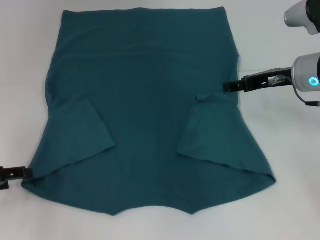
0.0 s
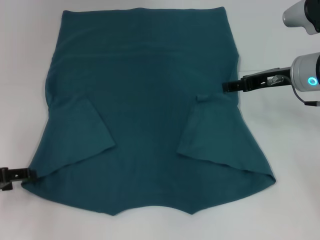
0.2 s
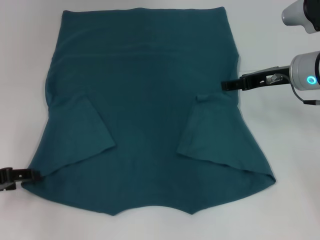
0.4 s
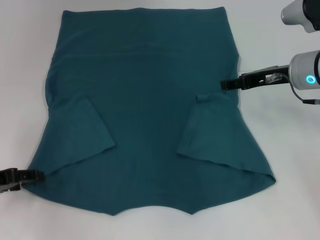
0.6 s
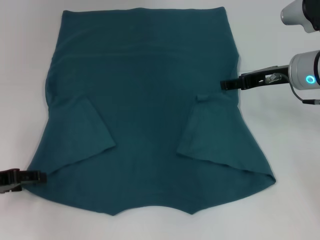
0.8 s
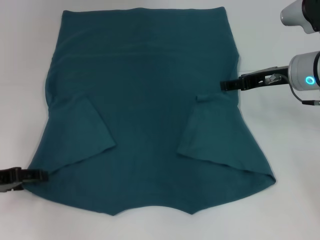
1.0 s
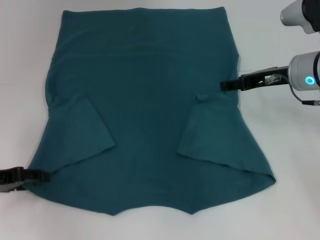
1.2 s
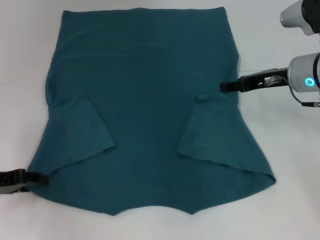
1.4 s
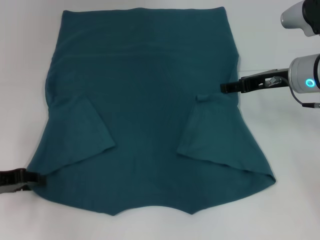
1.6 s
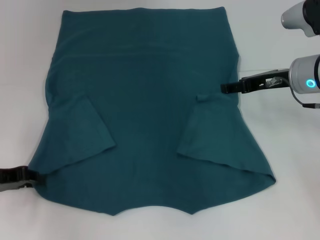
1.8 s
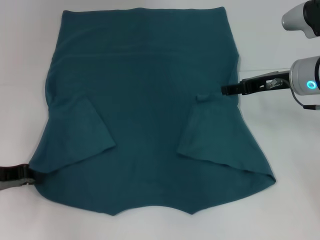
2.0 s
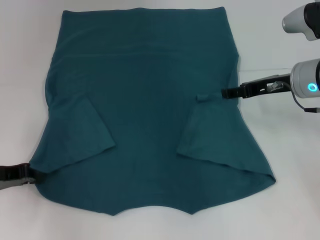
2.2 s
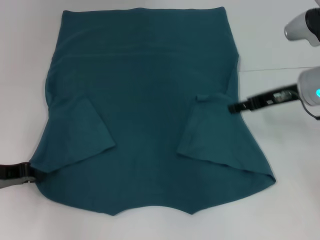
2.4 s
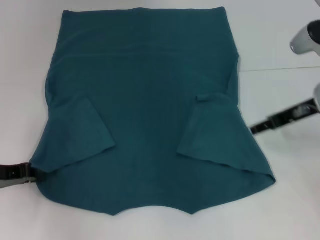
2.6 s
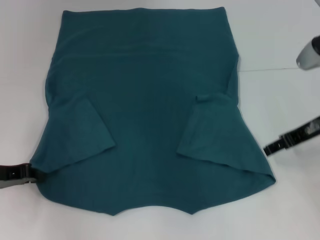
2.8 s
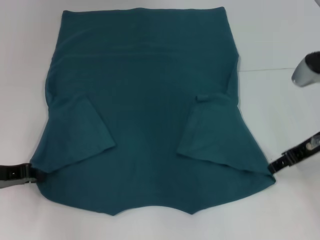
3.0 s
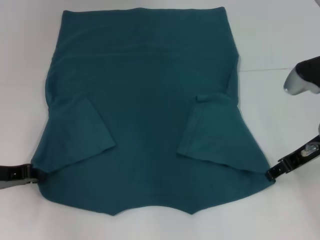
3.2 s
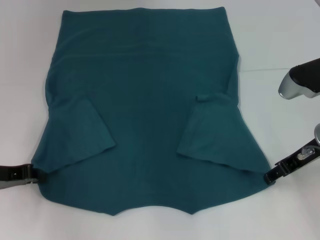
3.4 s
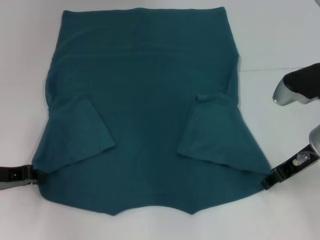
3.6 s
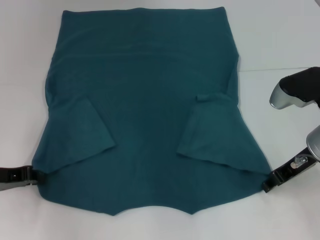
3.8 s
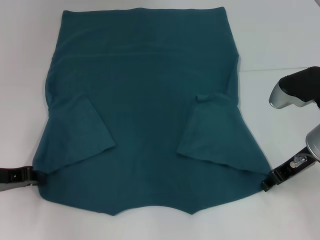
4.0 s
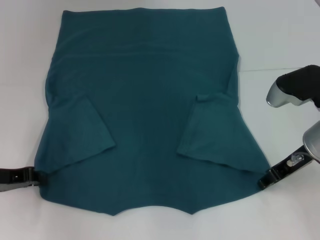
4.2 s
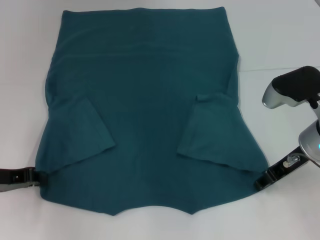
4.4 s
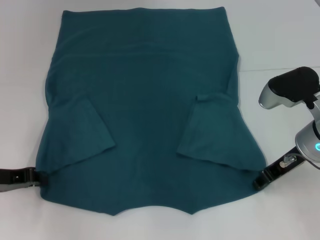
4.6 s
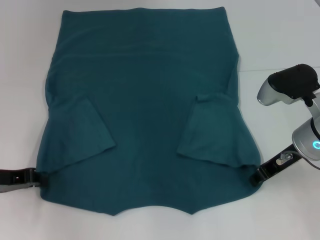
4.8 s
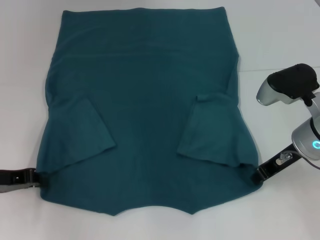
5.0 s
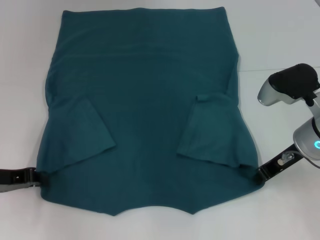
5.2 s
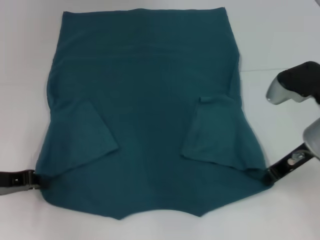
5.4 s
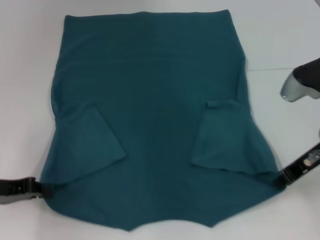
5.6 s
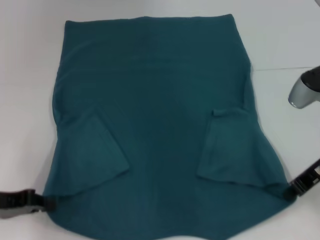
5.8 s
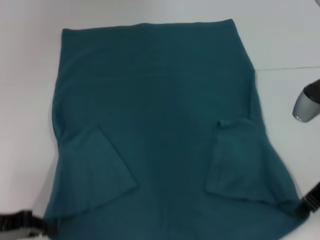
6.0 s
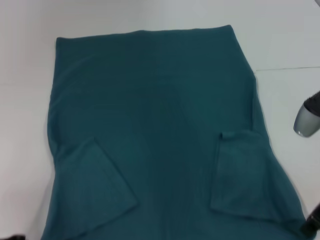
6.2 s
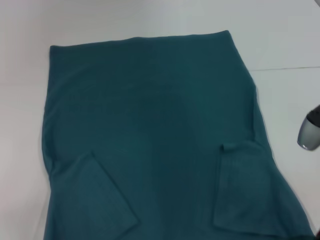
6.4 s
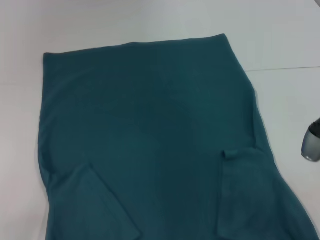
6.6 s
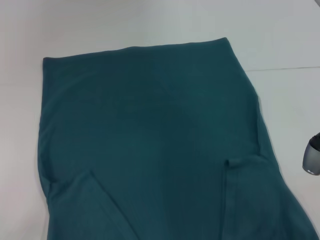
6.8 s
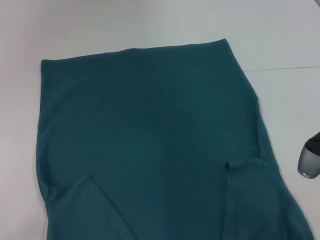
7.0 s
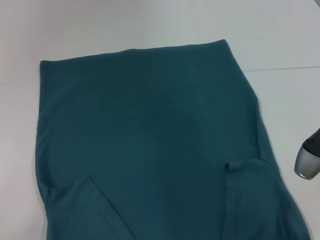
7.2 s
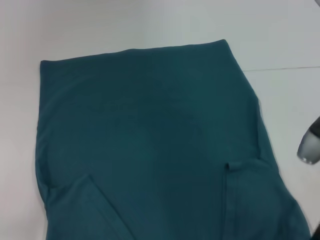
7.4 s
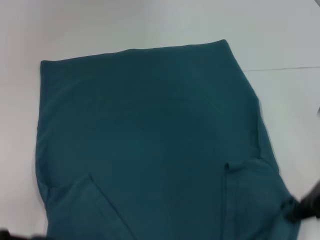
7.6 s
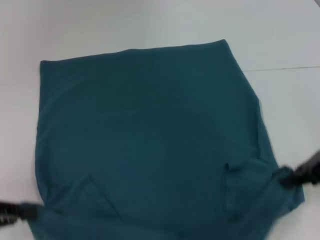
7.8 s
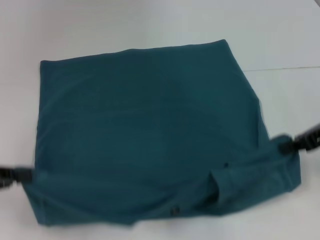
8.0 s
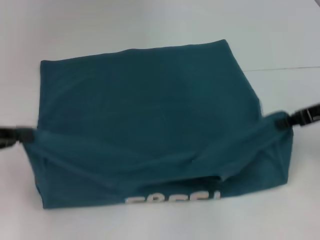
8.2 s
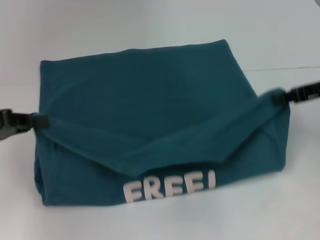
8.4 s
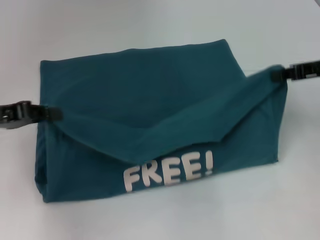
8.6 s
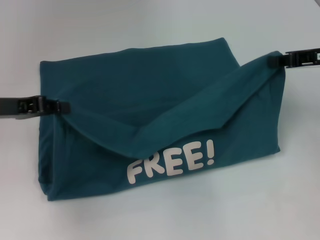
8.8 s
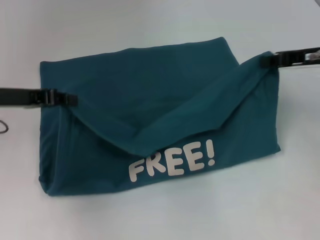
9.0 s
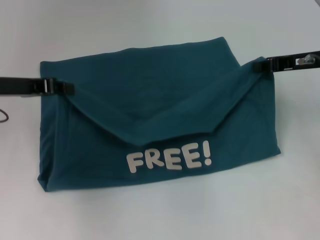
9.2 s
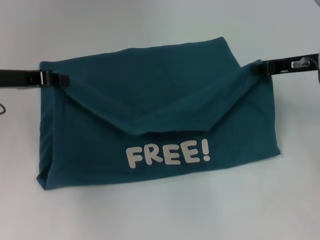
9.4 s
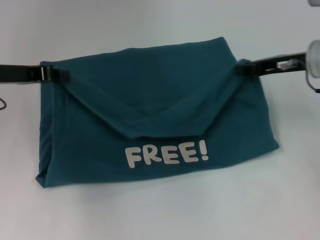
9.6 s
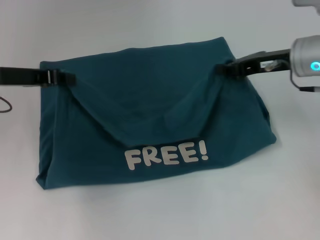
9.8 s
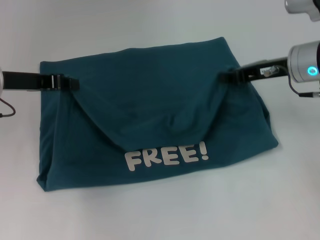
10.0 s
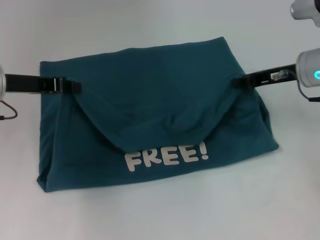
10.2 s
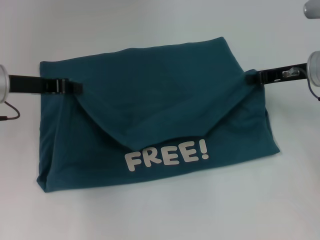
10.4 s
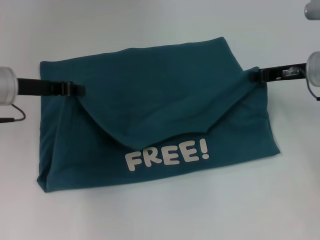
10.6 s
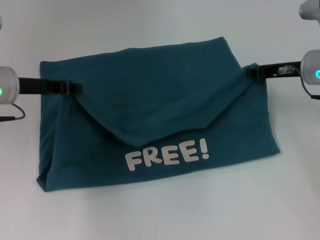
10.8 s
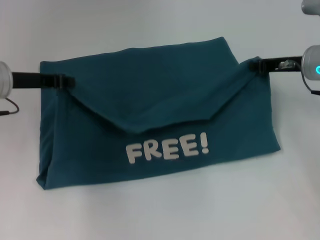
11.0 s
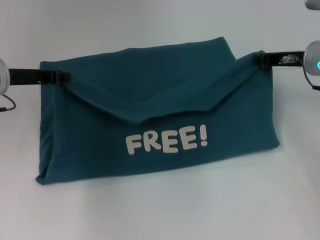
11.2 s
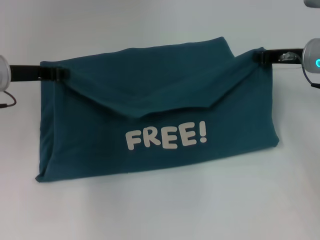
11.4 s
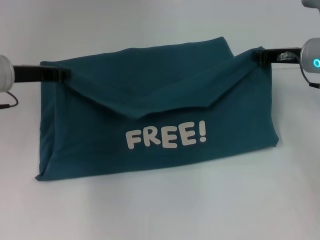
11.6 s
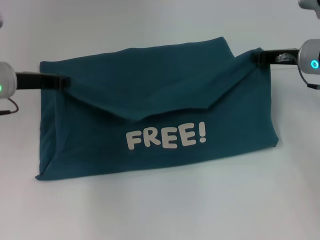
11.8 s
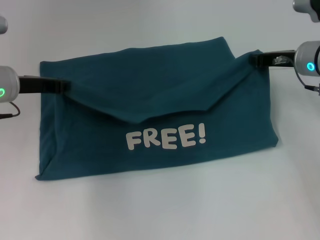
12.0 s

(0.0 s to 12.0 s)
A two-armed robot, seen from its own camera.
Step, 0.0 s - 2.0 s: Grab the bottom left corner with your left hand.
Step, 2.2 s - 5.0 s: Grab the bottom right corner with your right hand.
0.0 s - 1.6 s: The grippers stay close to where they were, moving slightly.
1.6 s - 3.0 s: The right gripper shifts some 5 cm backward. The left gripper closes.
3.0 s - 4.4 s: The grippers move only a little.
4.4 s - 6.0 s: The left gripper shifts approximately 5 cm backward, while the right gripper ends up some 5 cm from where it was, and closes up.
6.0 s - 7.6 s: The left gripper is displaced backward by about 5 cm.
7.6 s - 9.0 s: The left gripper travels forward and upward by roughly 20 cm; the right gripper heads forward, covering about 10 cm.
9.0 s - 10.4 s: The right gripper changes place by approximately 5 cm.
10.4 s - 12.0 s: The grippers make only small movements.

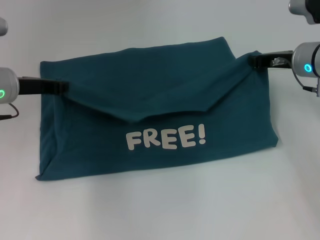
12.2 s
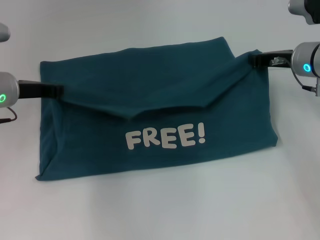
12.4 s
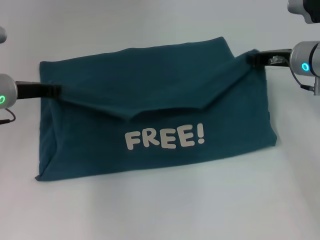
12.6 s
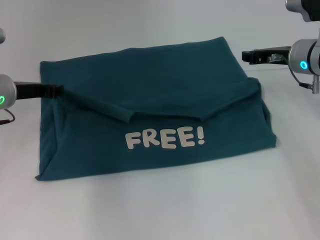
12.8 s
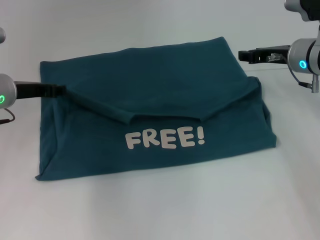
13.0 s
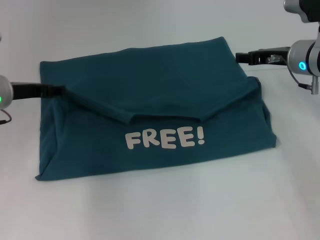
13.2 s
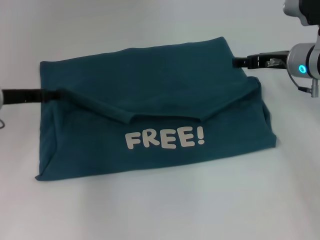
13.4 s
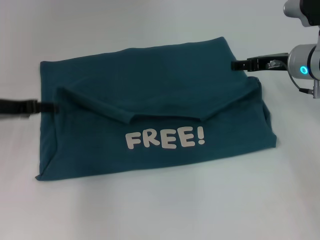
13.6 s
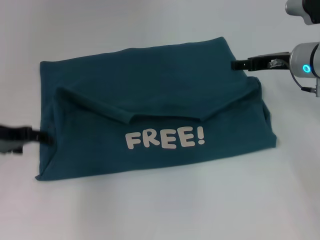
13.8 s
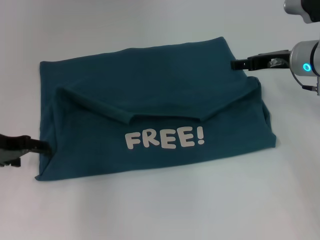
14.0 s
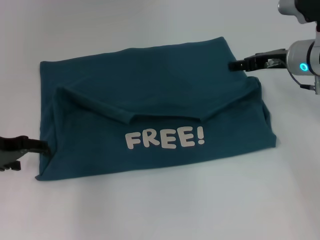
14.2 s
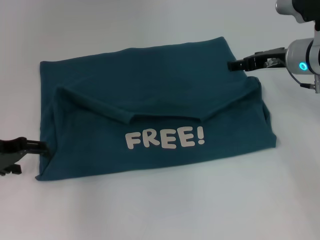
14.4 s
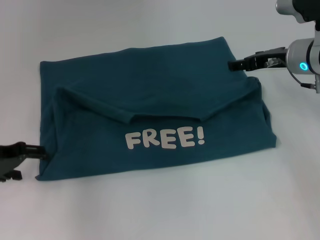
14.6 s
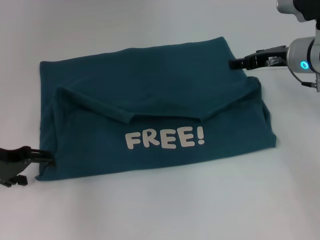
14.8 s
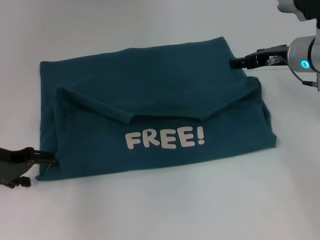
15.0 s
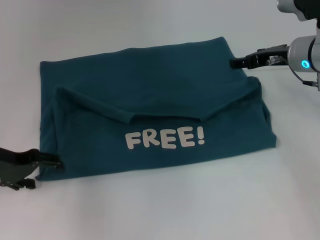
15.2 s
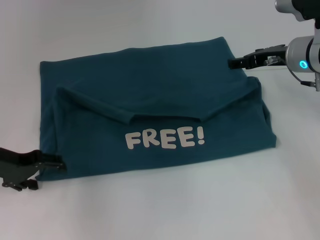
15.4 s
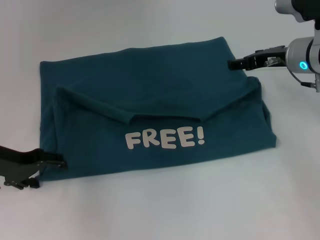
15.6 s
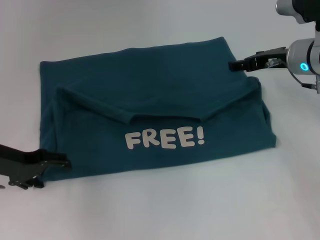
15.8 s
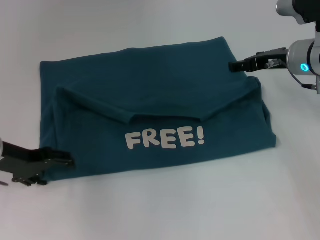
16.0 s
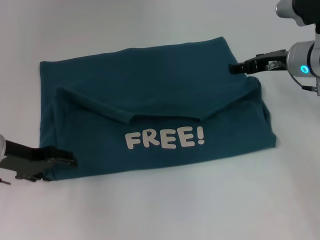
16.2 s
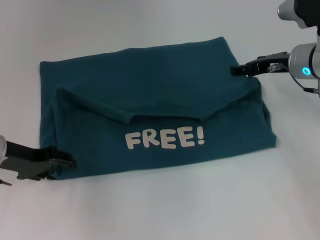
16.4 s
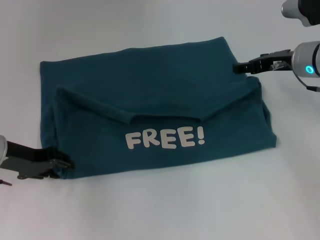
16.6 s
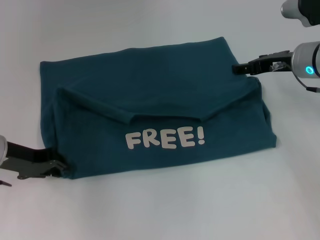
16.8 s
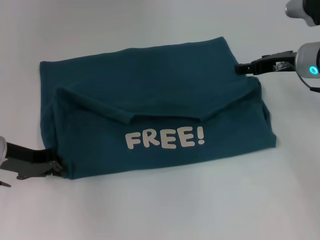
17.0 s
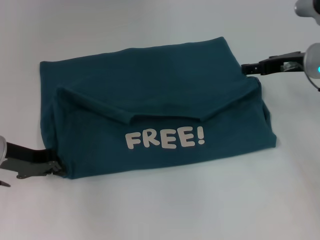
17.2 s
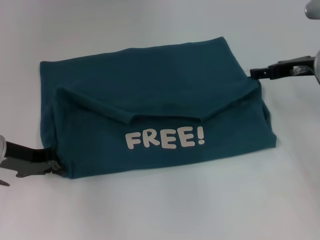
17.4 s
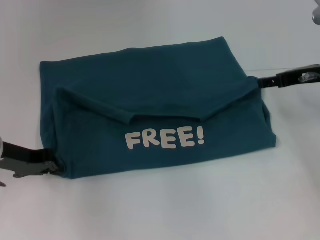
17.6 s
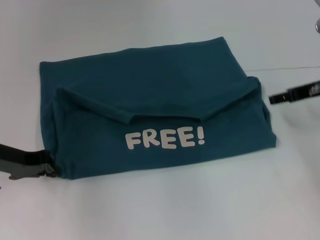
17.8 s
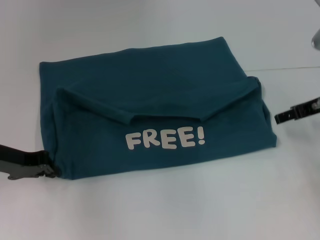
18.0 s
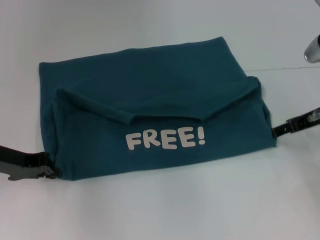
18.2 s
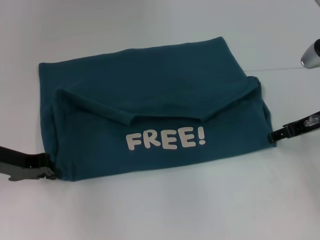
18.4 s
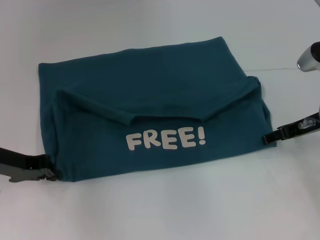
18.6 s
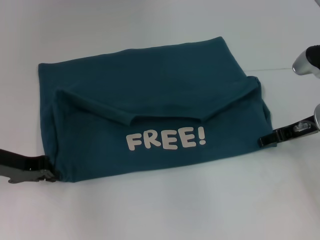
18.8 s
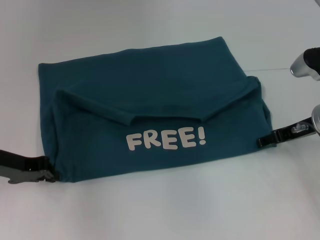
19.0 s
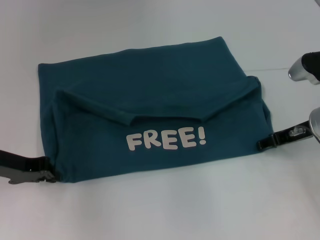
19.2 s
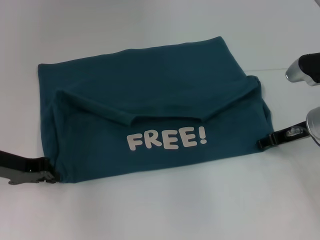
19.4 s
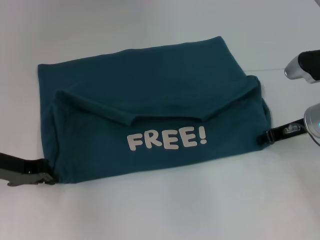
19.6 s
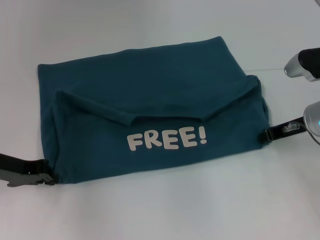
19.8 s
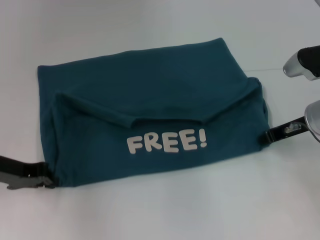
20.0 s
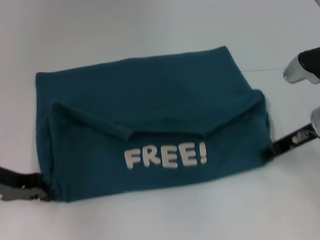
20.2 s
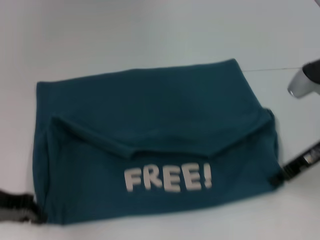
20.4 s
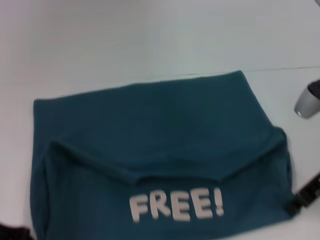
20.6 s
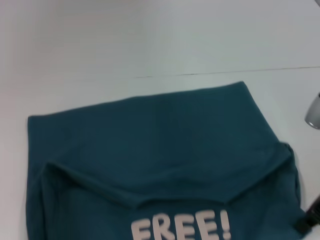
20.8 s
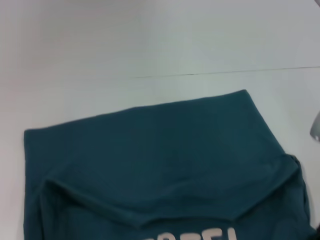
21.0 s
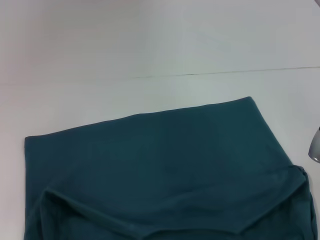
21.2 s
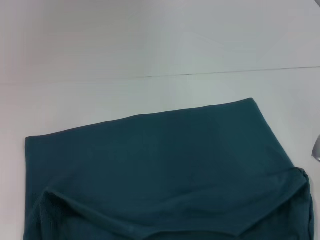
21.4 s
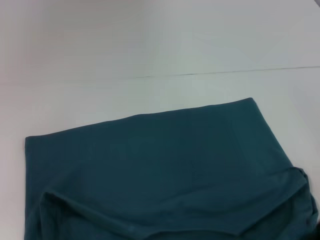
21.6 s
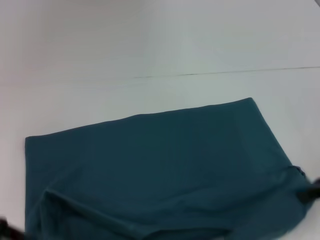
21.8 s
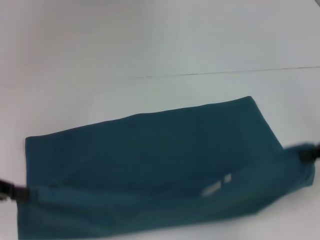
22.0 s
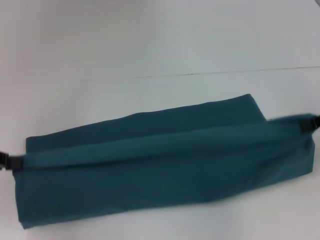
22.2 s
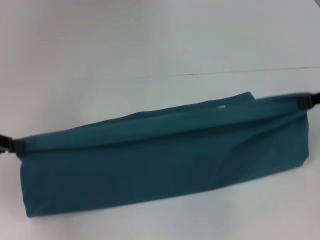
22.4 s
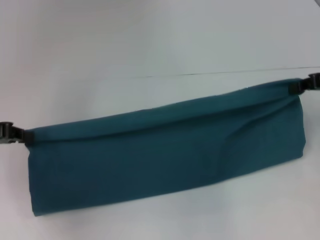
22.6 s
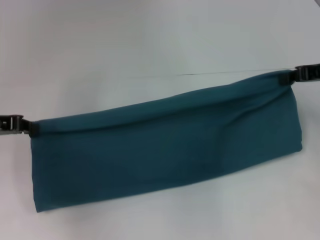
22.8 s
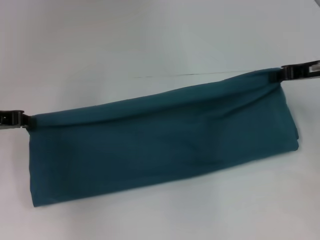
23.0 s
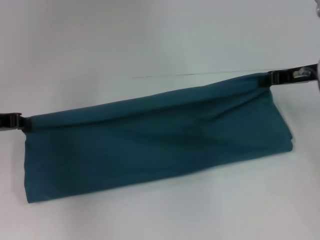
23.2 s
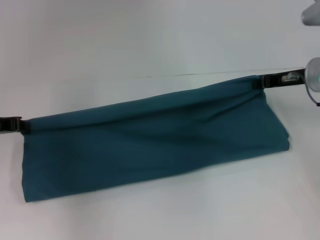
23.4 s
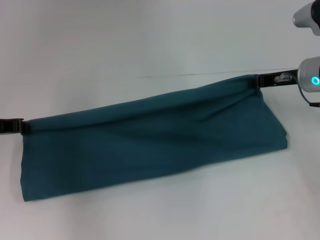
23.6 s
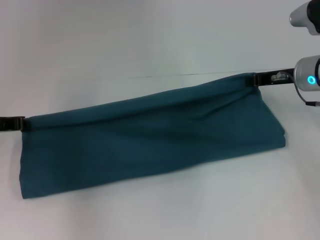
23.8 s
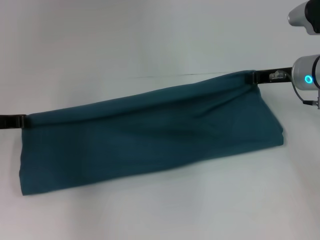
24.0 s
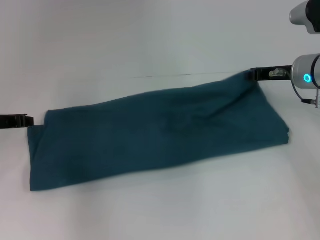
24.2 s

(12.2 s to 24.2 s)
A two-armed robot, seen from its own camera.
Step, 12.8 s - 13.2 s: Fold the clothes to the left.
Step, 13.4 s - 20.8 s: Pull the clothes with your left hand.
Step, 13.4 s - 20.8 s: Pull the clothes with your right hand.
Step, 21.0 s - 24.2 s: Fold the clothes to the right.
12.2 s - 13.8 s: The left gripper moves roughly 5 cm, and opens up. Meanwhile the right gripper opens its fingers.
15.2 s - 16.6 s: There are only small adjustments of the grippers.
16.6 s - 18.2 s: The right gripper moves backward, about 5 cm; the left gripper closes up.
18.2 s - 19.8 s: The right gripper closes its fingers.
19.8 s - 21.2 s: Both grippers move backward, about 10 cm.
21.2 s - 22.6 s: The left gripper heads forward and upward, covering approximately 15 cm. Meanwhile the right gripper goes roughly 15 cm forward, upward and to the right.
22.6 s - 24.2 s: The right gripper travels to the left, downward and forward by some 10 cm; the left gripper travels downward by approximately 5 cm.
